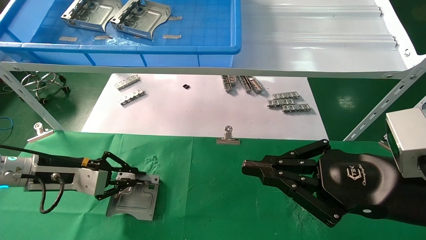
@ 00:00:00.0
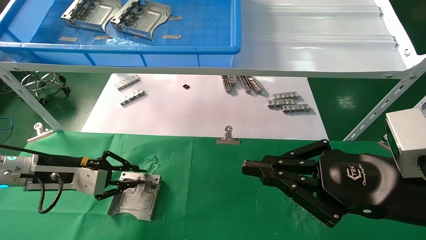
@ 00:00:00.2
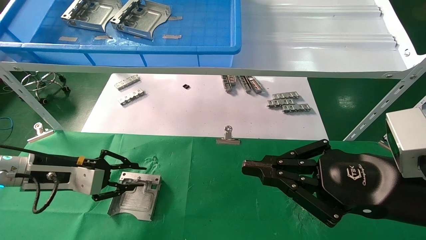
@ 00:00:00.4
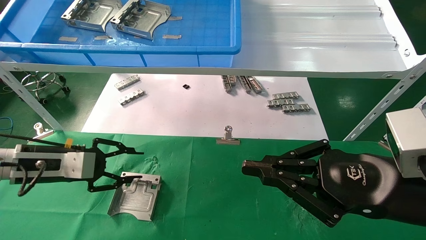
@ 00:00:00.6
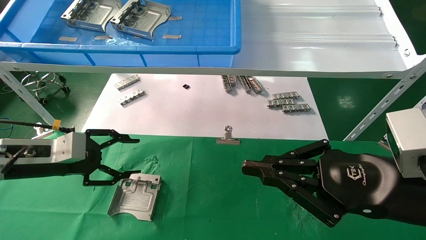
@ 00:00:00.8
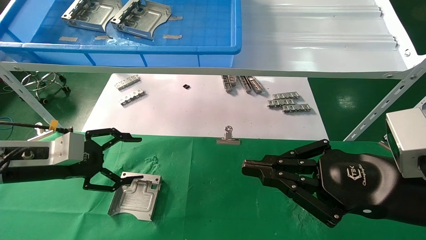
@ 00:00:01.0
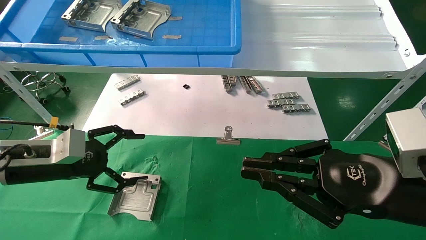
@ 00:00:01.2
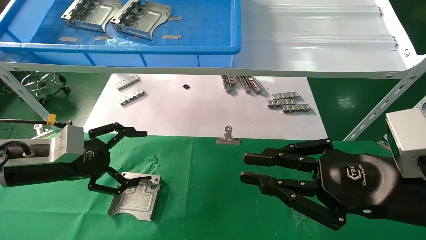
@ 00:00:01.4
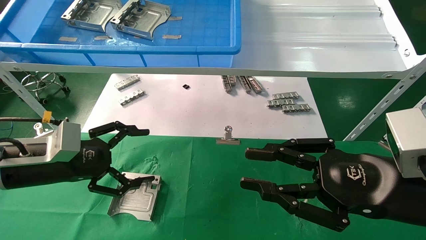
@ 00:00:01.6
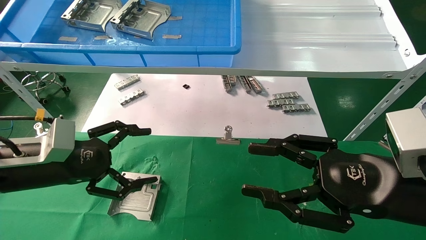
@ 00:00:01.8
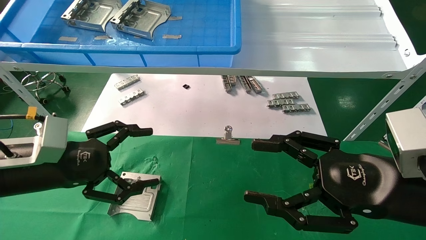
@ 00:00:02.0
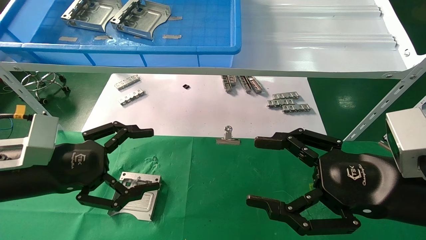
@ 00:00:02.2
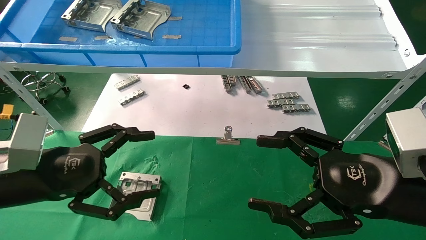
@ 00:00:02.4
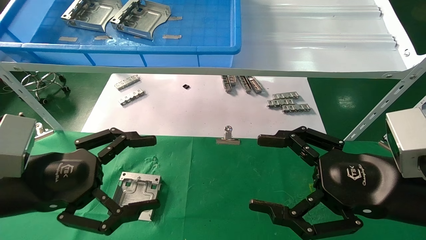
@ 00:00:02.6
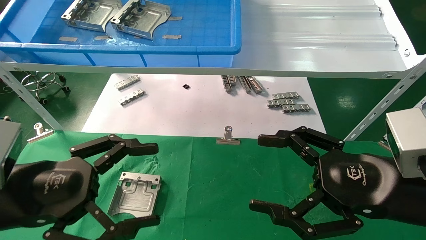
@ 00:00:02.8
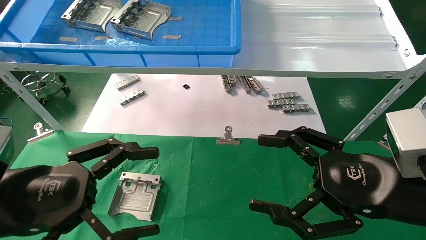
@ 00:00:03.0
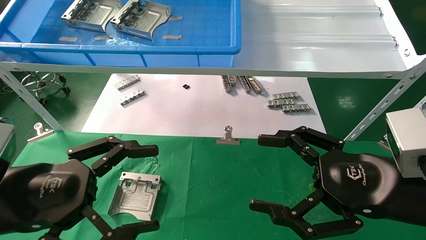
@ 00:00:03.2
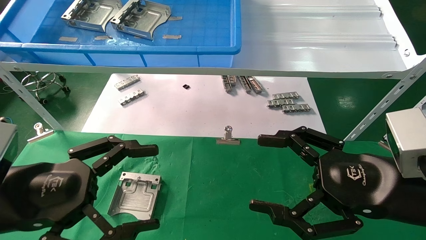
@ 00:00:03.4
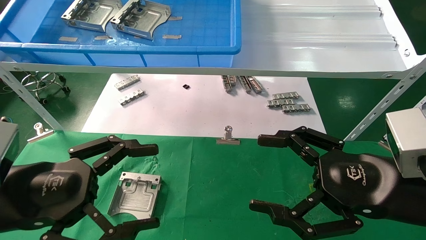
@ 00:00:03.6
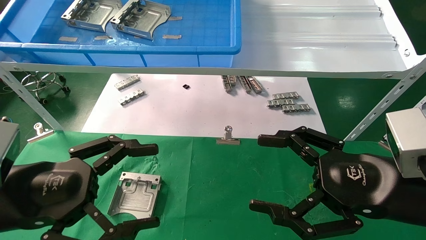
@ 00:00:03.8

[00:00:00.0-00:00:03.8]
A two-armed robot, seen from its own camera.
Task of the whole recording: use the mechanical arm to pick up the parts and place them on the table.
00:00:00.0 to 00:00:01.2: The left gripper changes place by approximately 5 cm, and opens.
00:00:01.2 to 00:00:02.6: The right gripper opens, while the left gripper moves backward, roughly 10 cm.
00:00:02.6 to 00:00:03.8: The grippers stay close to where they were, moving slightly.

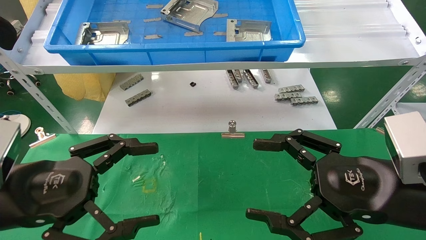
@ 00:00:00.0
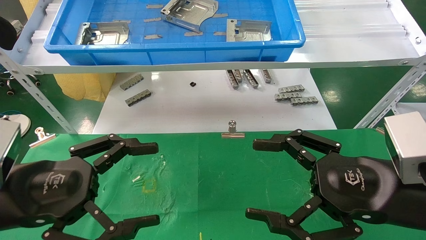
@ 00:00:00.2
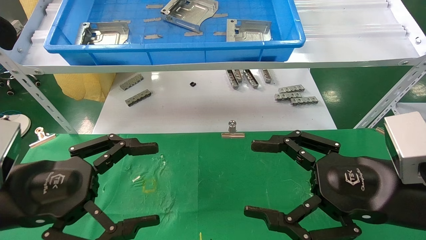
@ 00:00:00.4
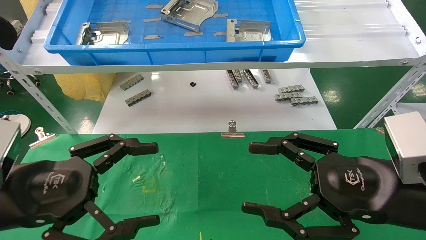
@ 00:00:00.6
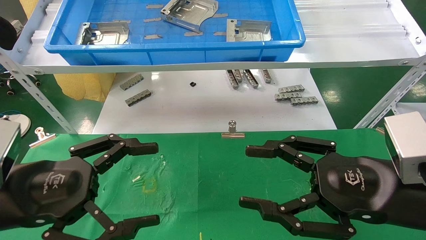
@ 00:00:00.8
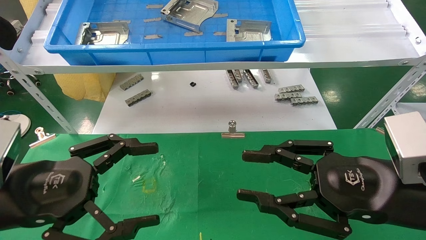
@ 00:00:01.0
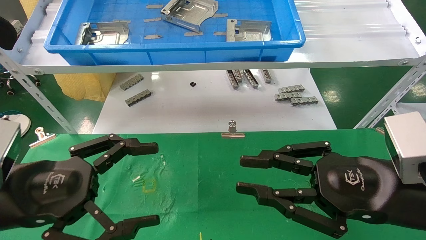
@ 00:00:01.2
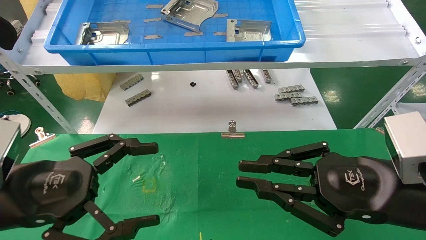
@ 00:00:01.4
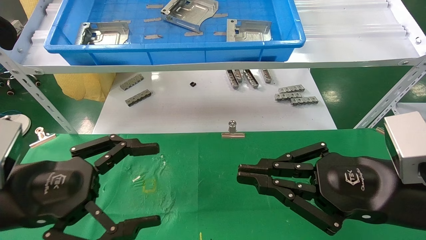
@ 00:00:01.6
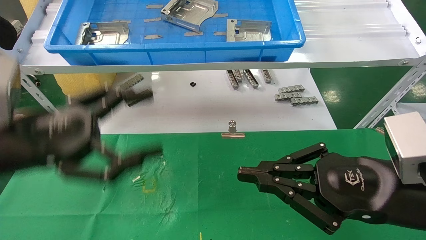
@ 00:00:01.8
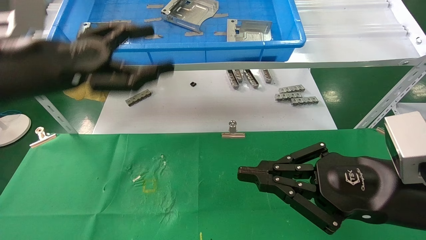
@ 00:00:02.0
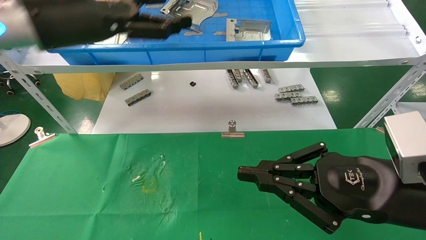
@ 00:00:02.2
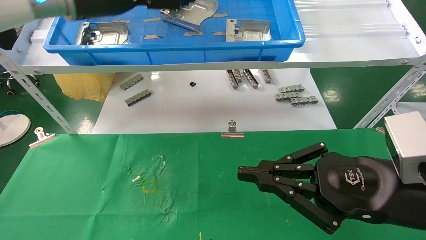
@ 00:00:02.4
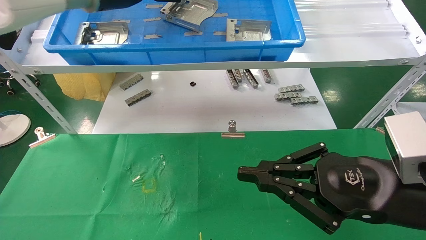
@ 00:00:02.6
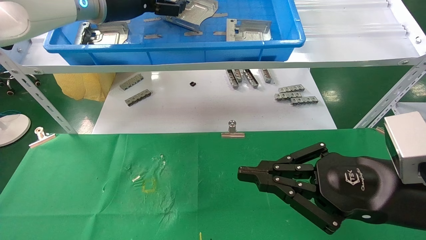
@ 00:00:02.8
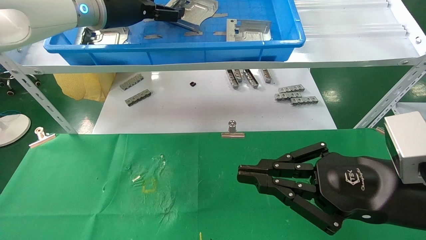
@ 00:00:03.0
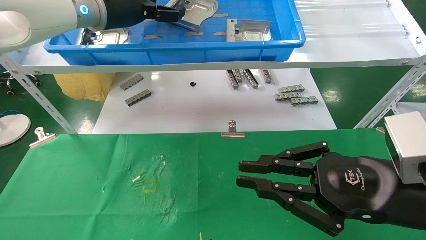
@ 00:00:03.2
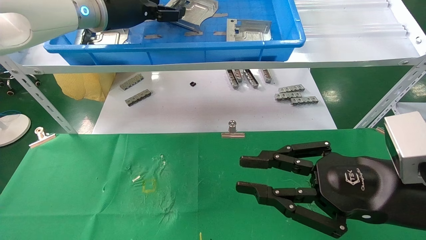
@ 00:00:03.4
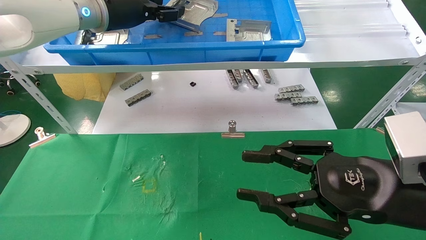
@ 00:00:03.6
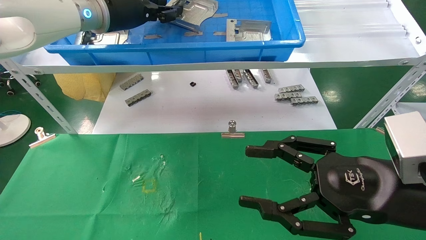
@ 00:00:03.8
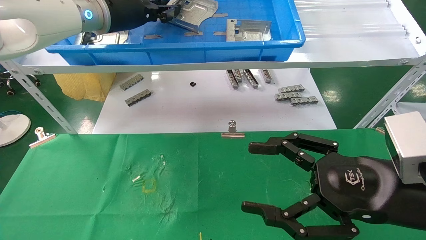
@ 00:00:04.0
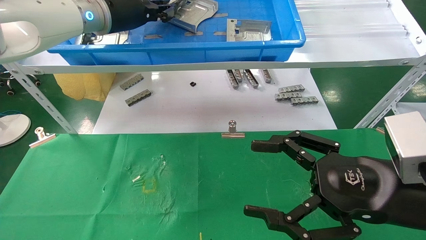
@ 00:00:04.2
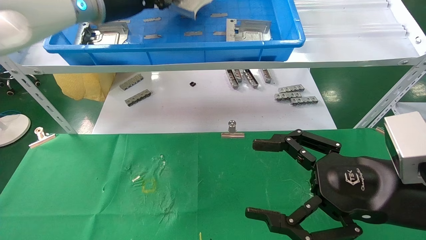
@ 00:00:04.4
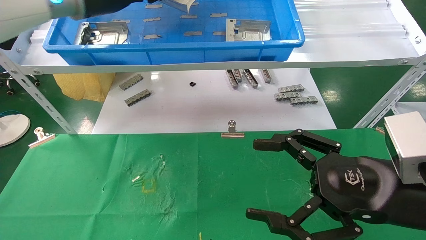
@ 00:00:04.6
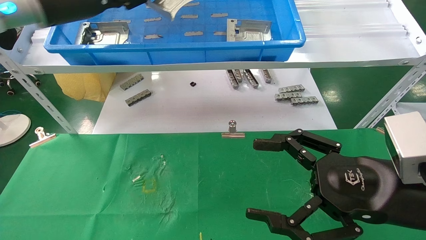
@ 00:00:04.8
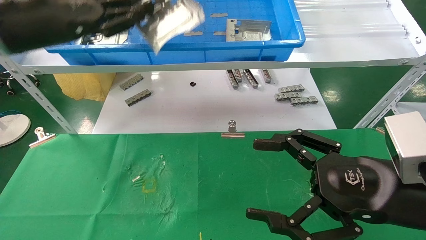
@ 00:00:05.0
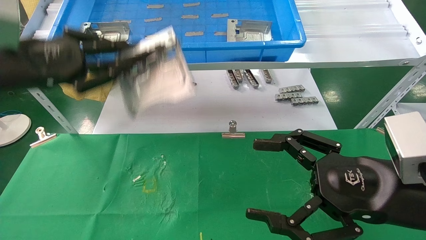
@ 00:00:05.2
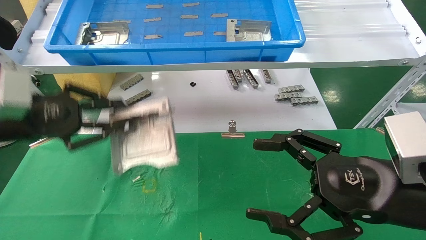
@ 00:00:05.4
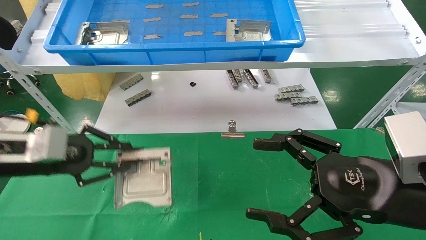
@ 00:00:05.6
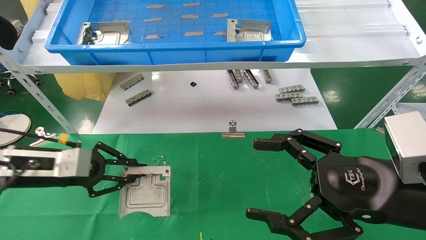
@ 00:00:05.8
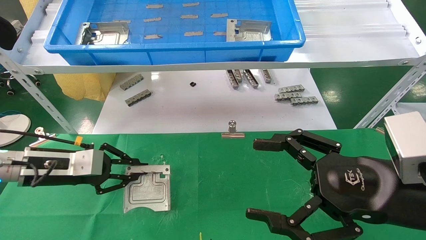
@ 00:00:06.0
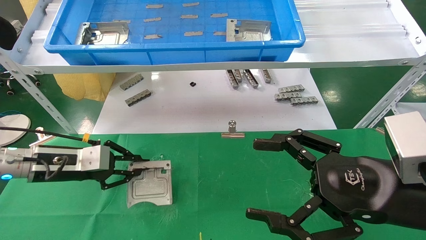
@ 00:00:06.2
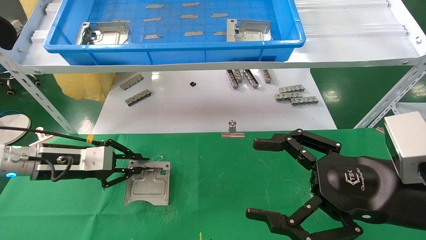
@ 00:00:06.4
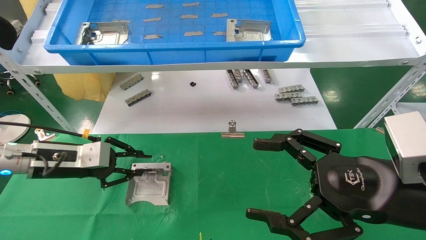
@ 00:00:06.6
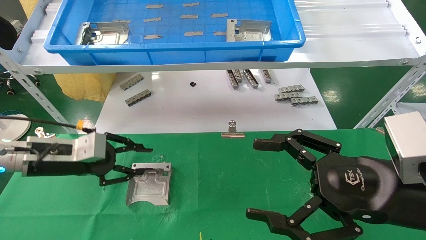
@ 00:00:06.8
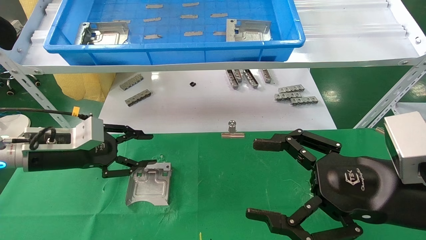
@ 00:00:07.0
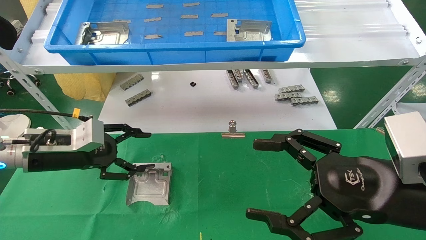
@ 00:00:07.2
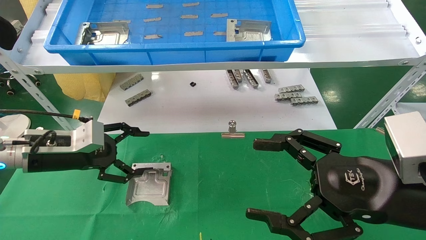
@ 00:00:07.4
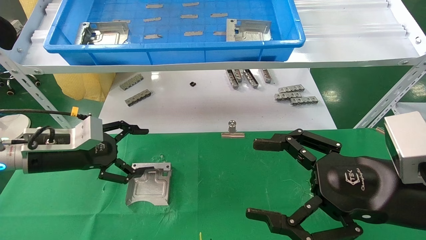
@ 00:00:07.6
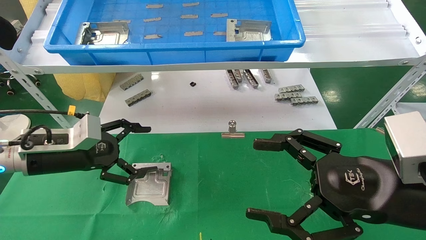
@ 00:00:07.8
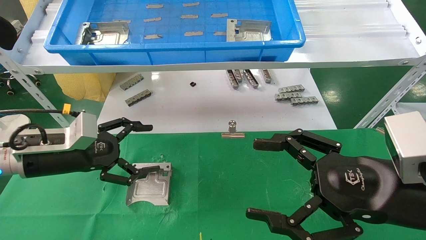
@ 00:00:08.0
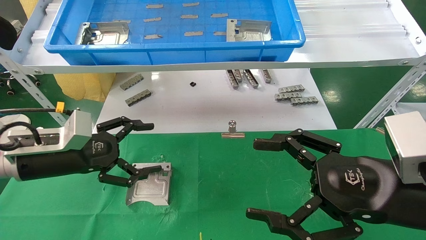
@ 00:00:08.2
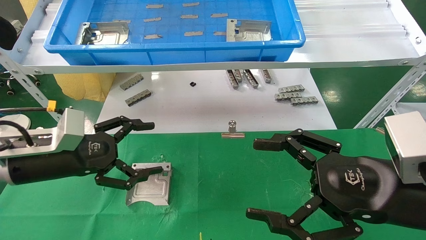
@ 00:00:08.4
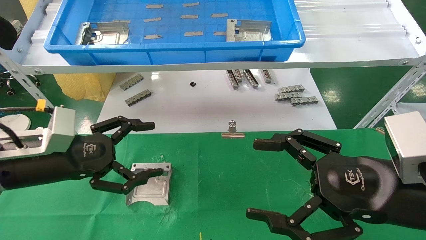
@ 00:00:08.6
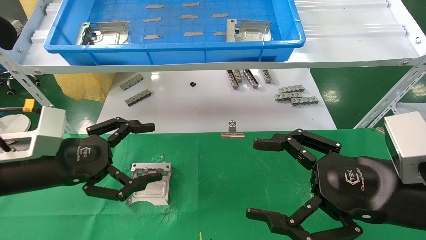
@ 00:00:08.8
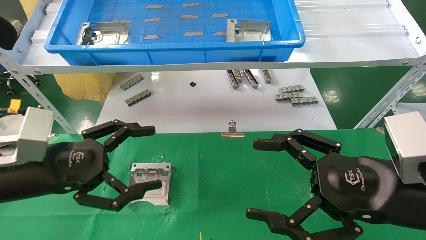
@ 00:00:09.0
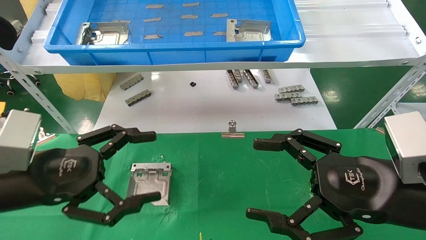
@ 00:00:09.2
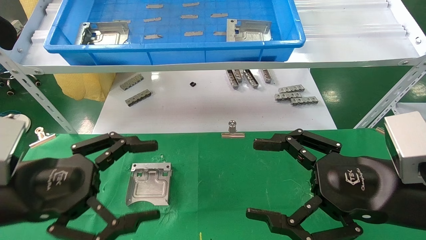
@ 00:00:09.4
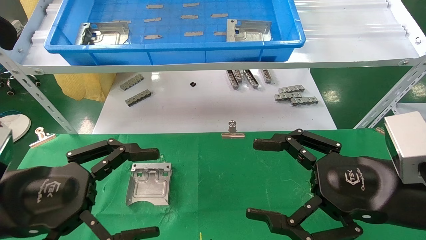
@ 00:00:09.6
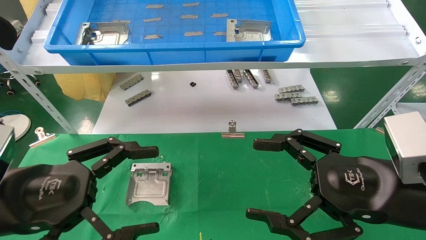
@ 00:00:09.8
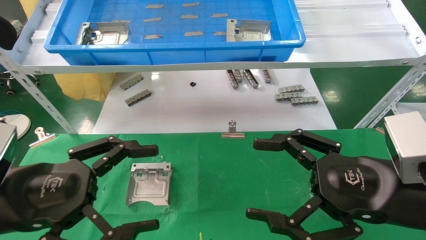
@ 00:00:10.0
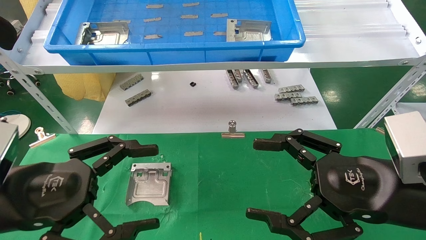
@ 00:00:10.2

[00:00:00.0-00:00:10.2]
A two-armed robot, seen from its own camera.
Task of the whole recording: use the mechanical arm to pick up the parts and place them on the table.
Step, 00:00:01.8 to 00:00:04.0: Pick up the hard drive bracket from the feeding area.
Step, 00:00:04.2 to 00:00:07.0: Place the hard drive bracket into the box.
00:00:00.0 to 00:00:01.4: The right gripper closes.
00:00:01.4 to 00:00:03.0: The left gripper travels forward and upward by about 35 cm.
00:00:03.0 to 00:00:04.4: The right gripper opens its fingers. Meanwhile the left gripper closes.
00:00:04.4 to 00:00:05.8: The left gripper moves downward and to the left, about 30 cm.
00:00:05.8 to 00:00:07.2: The left gripper opens its fingers.
00:00:07.2 to 00:00:08.8: The left gripper is displaced backward by some 10 cm, and opens.
00:00:08.8 to 00:00:10.2: The left gripper goes roughly 10 cm backward.
